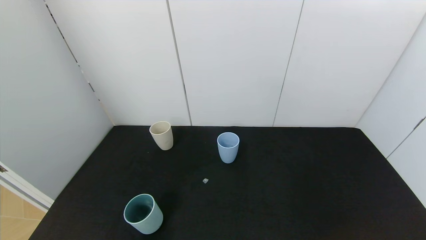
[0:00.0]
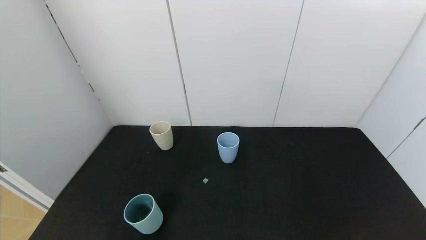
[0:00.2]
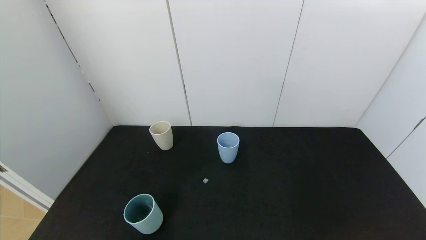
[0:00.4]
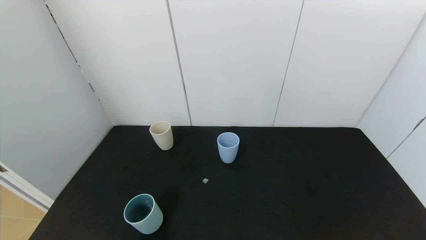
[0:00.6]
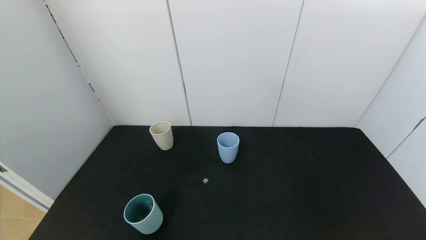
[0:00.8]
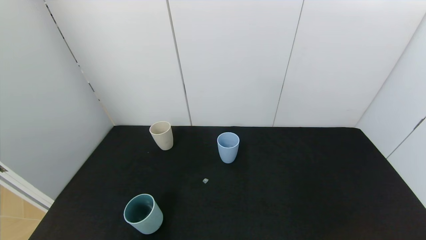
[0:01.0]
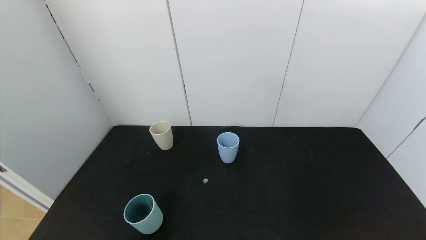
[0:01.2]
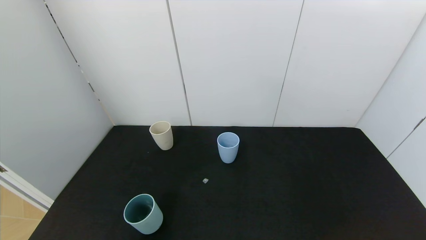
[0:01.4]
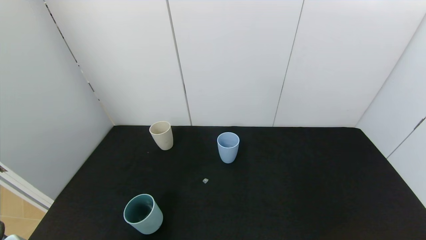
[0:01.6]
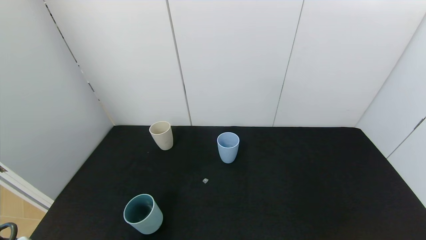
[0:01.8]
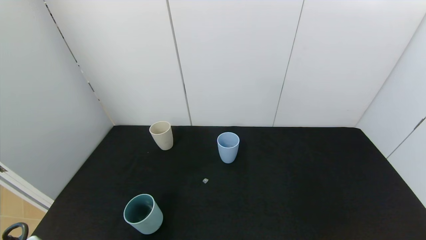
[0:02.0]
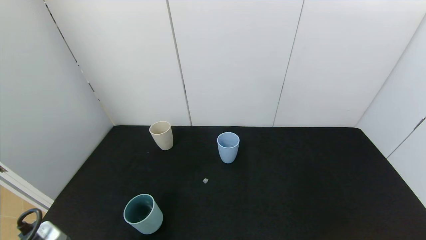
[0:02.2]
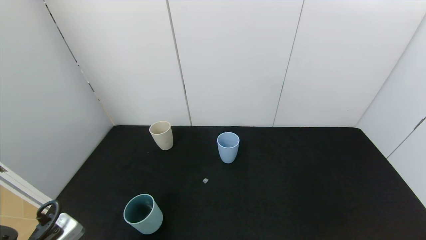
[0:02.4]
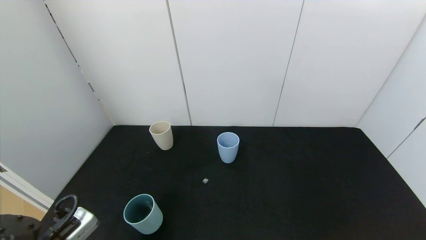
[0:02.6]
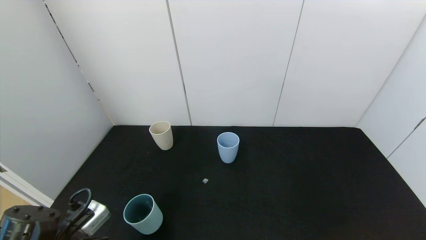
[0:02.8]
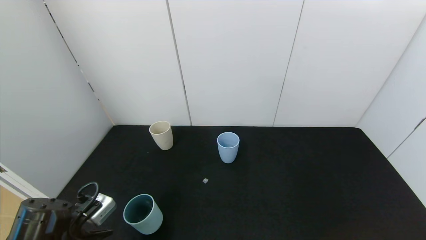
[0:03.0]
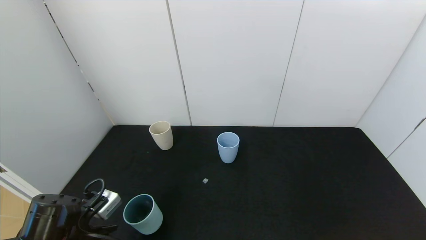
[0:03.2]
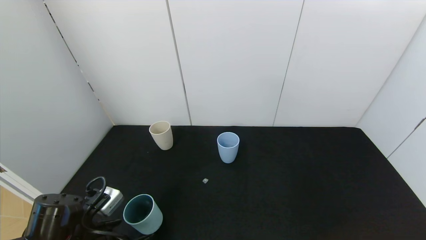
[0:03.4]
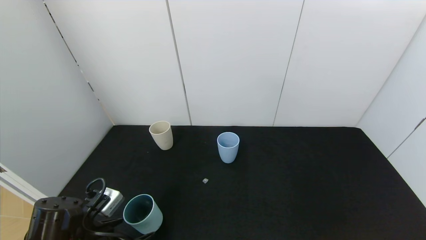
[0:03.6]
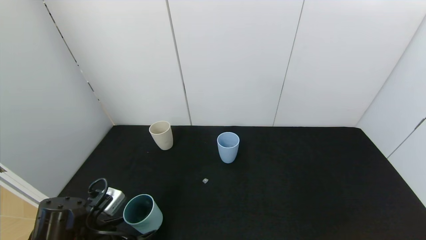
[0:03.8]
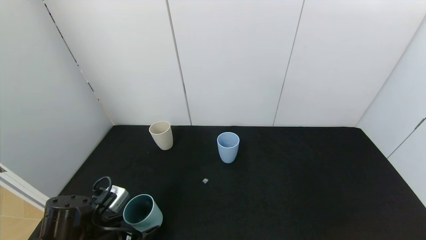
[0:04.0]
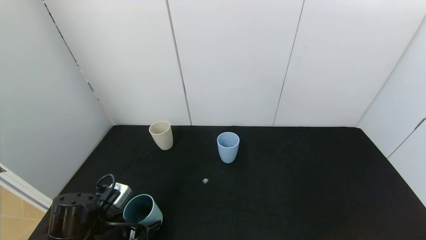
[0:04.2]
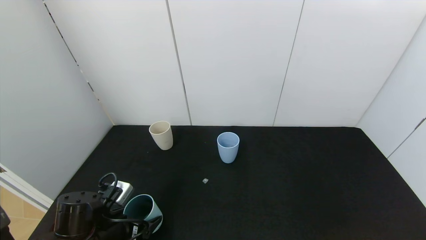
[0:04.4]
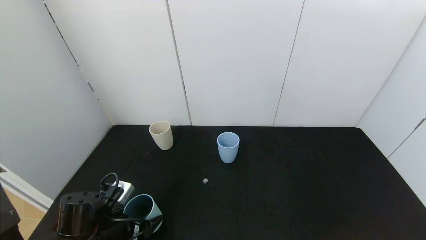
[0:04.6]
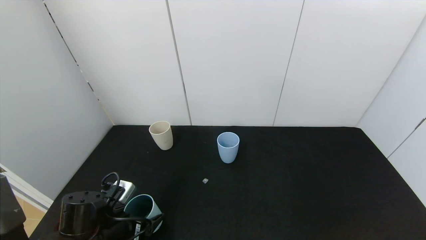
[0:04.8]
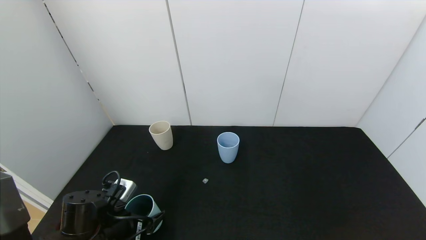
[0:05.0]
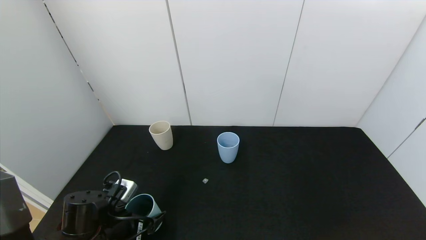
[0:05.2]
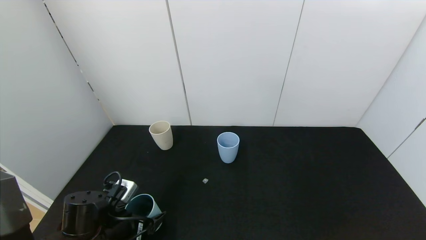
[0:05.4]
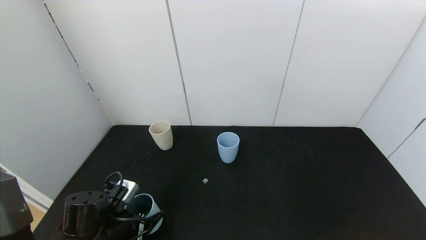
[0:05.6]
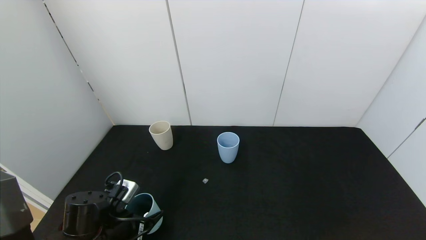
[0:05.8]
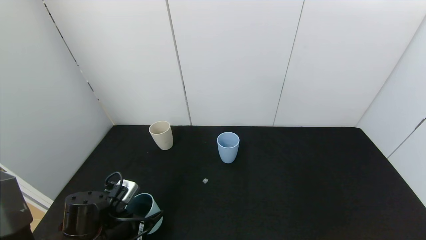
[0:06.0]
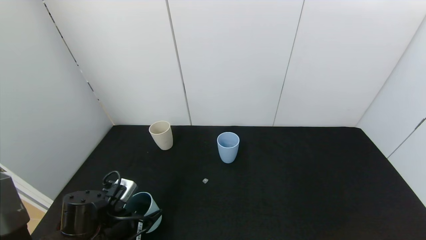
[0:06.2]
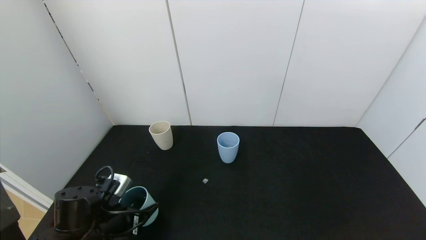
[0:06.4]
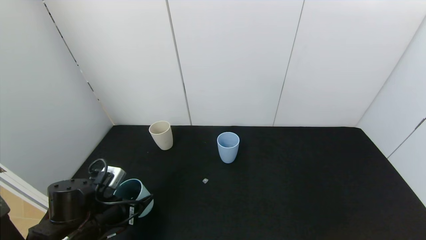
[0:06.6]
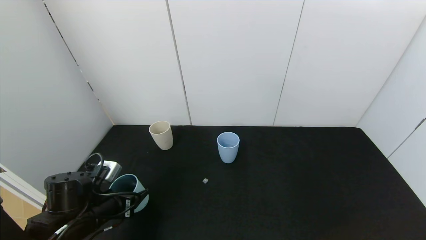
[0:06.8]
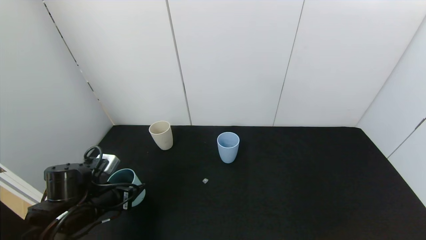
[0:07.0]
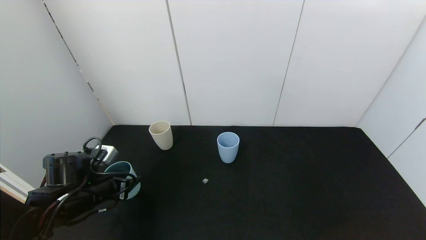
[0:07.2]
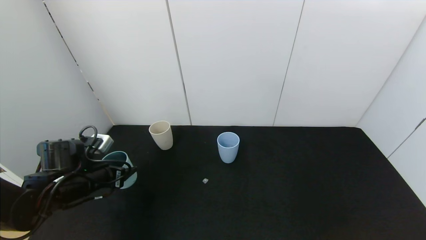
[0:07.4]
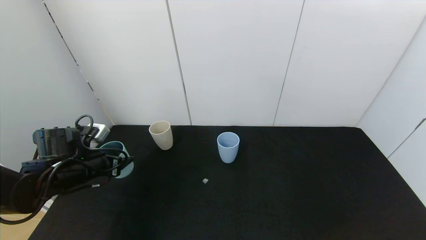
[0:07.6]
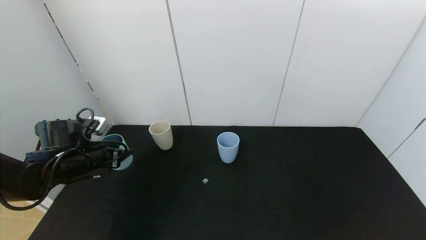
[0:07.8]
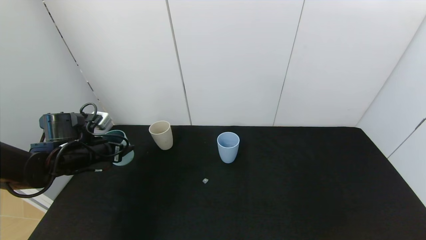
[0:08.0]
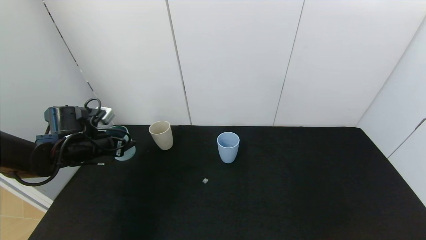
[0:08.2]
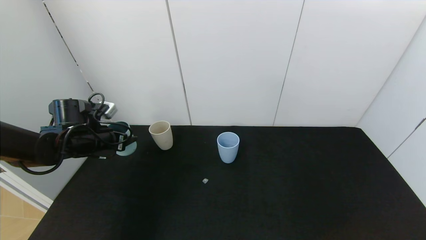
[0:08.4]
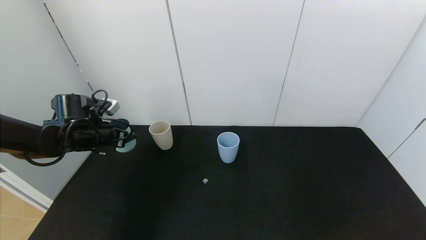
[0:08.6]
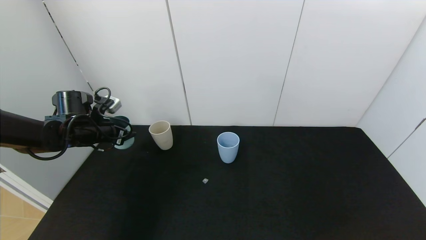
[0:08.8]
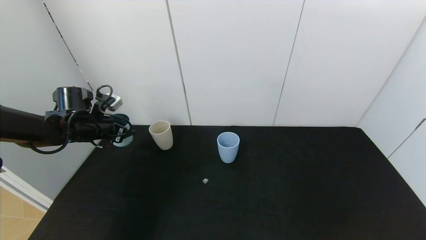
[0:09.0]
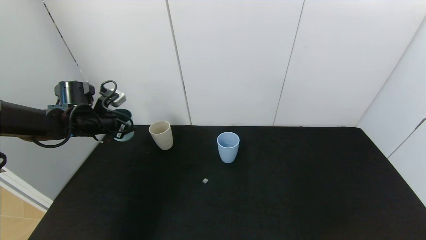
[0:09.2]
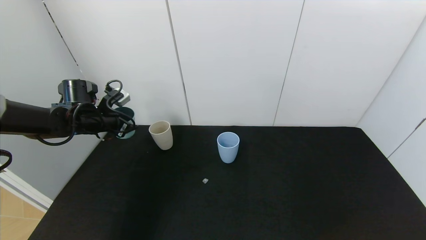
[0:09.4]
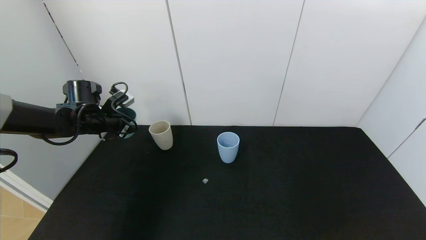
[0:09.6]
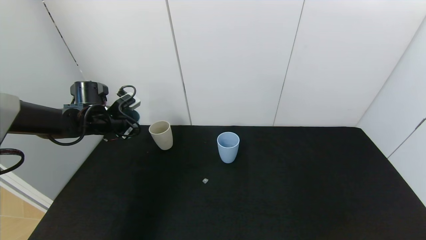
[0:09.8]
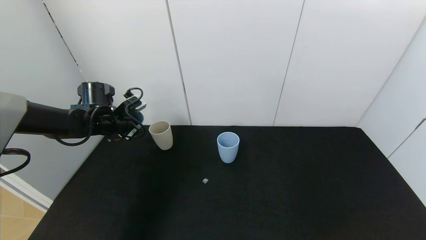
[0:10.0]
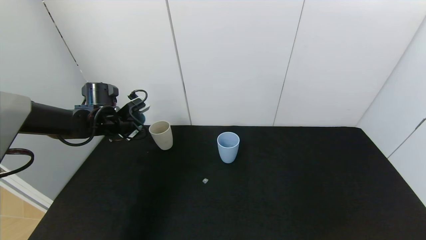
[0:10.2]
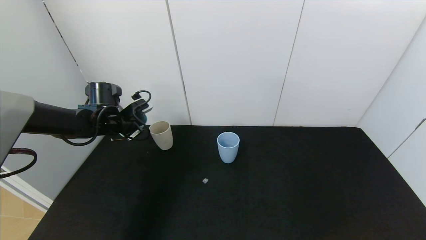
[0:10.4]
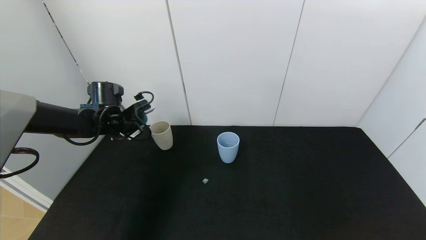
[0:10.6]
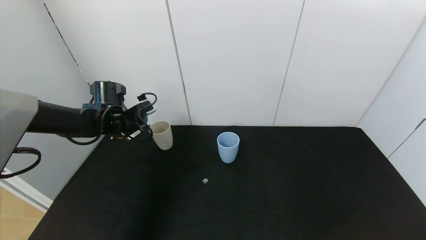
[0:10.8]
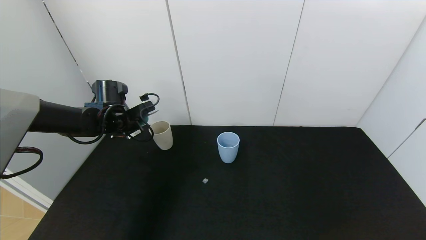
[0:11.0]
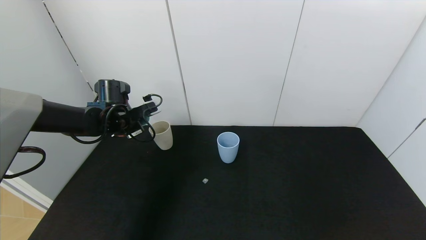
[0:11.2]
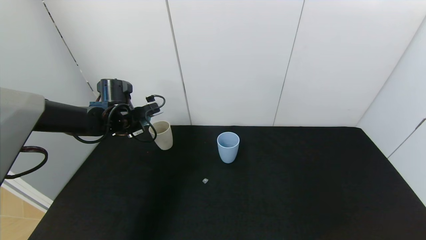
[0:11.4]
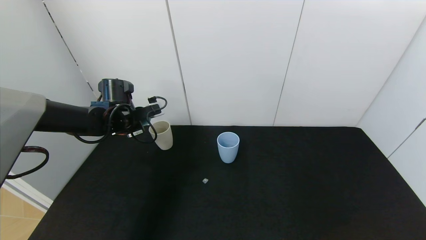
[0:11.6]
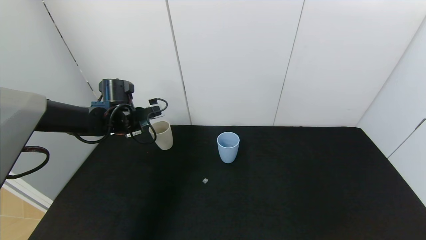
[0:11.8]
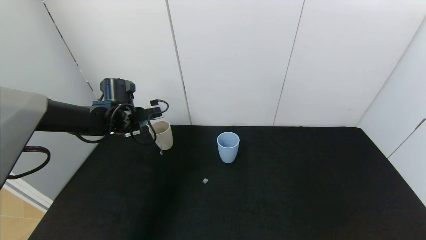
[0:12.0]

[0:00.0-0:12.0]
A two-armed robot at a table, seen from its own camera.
Task of the whole recording: use the gripper to pour the water into the other two cups on black table.
Step, 0.0 to 5.8 s: Grasp the green cup with the left gripper.
1.6 to 3.0 s: The left gripper heads forward, covering some 10 cm.
3.0 to 4.4 s: The left gripper goes roughly 5 cm forward.
4.4 to 6.0 s: The left gripper closes up.
6.0 to 7.6 s: The left gripper moves forward, to the left and upward, roughly 15 cm.
7.6 to 9.0 s: The left gripper goes some 10 cm forward.
9.0 to 10.4 s: The left gripper shifts by some 5 cm.

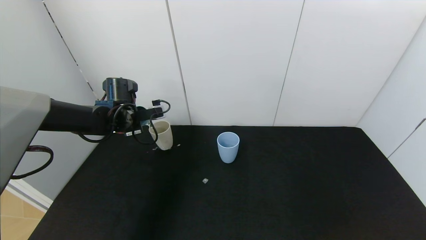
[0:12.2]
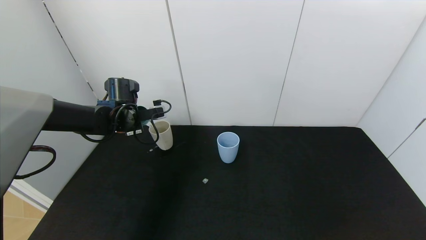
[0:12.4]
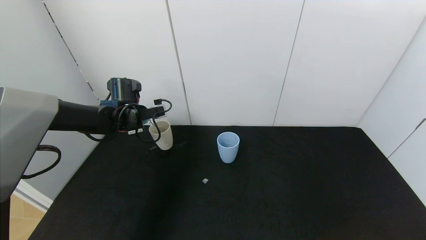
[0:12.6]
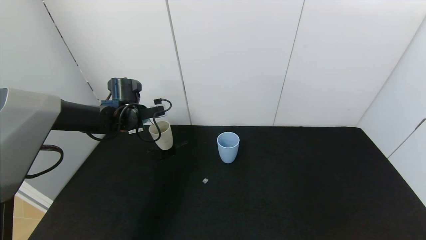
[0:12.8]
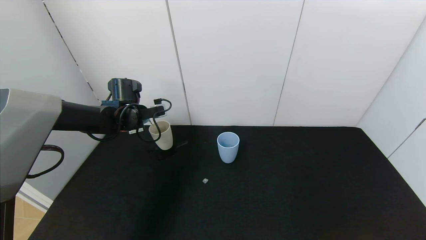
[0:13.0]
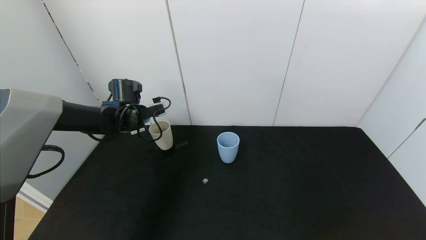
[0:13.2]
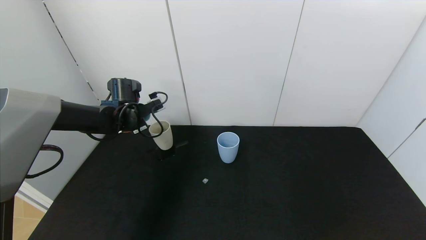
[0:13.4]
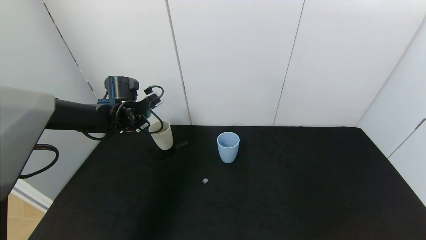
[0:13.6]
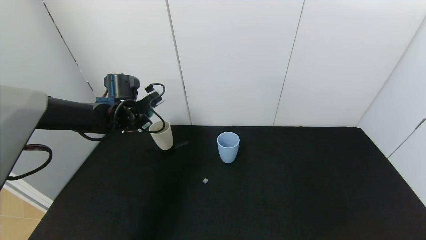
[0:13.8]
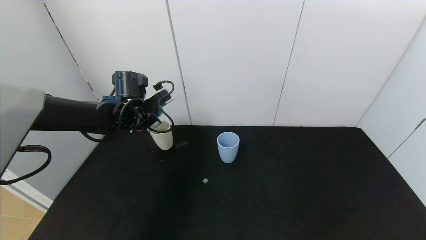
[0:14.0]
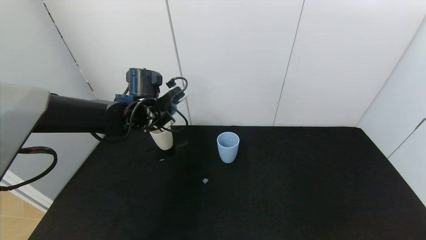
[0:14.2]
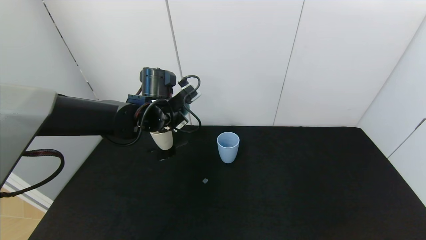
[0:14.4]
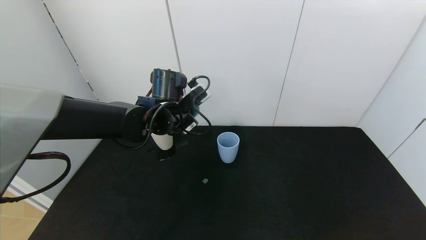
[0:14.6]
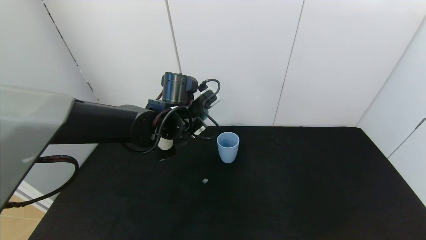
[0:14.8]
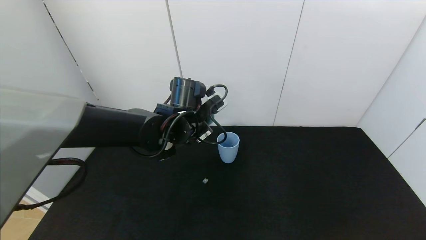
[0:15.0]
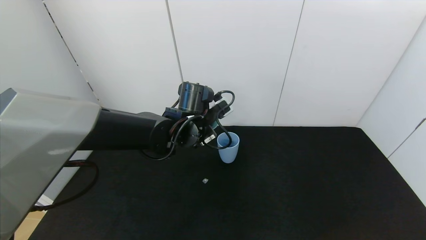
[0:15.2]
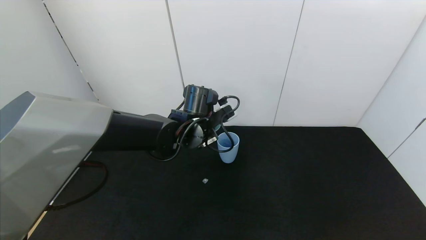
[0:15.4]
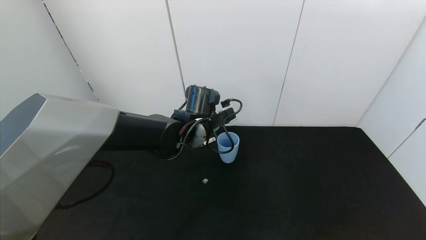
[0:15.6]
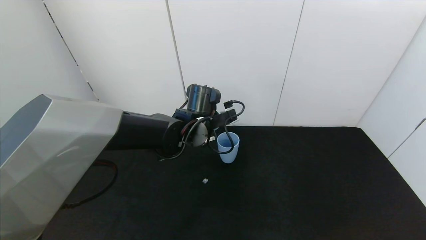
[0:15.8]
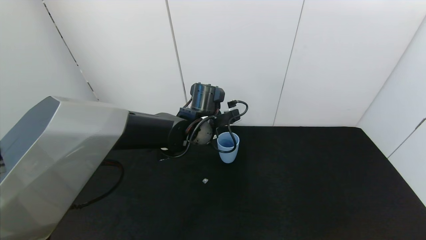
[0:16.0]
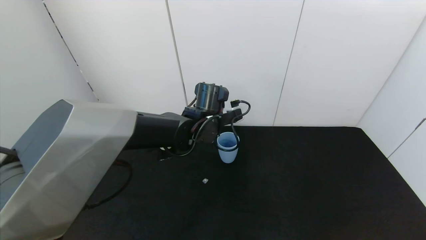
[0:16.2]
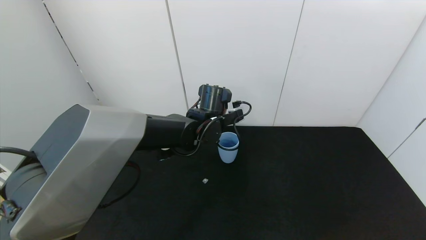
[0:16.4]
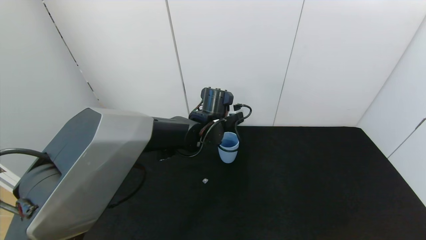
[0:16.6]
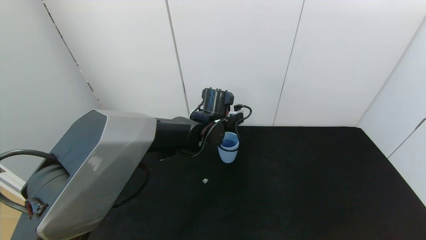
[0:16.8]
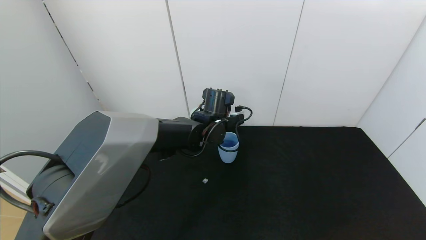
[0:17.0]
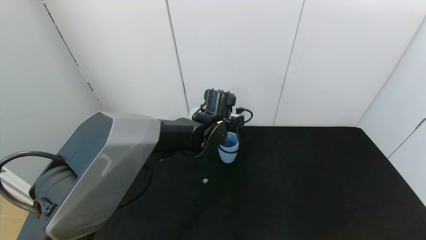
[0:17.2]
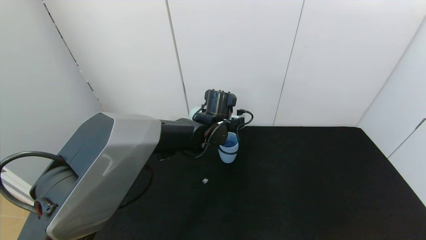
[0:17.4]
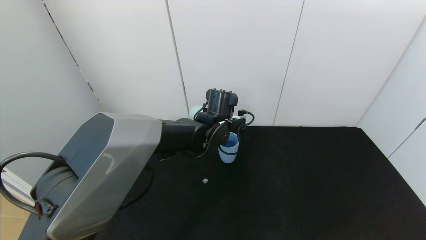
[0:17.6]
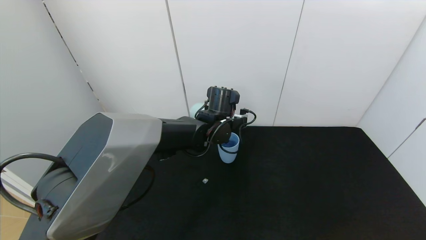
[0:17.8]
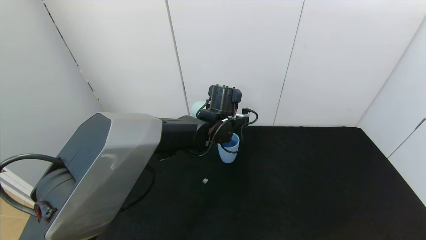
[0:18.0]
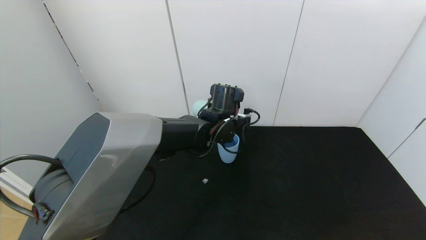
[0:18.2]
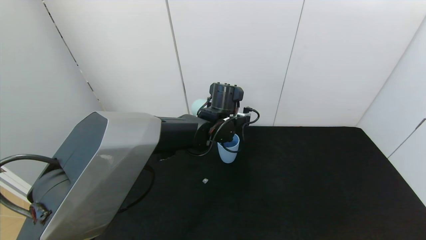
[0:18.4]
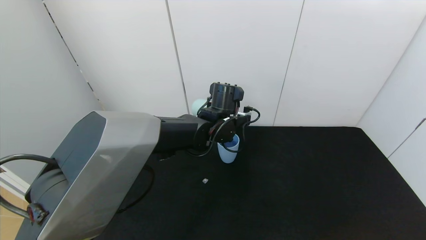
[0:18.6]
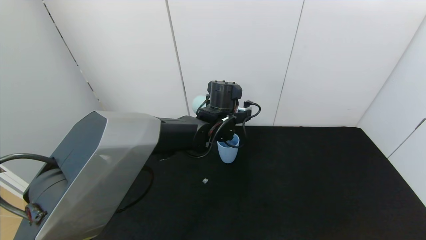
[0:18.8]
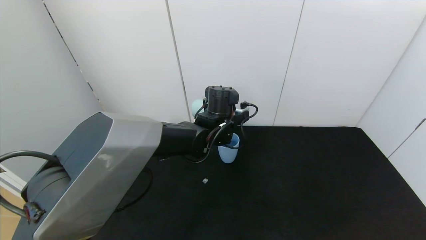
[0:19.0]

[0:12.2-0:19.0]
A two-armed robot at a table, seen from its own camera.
Task of the whole recording: use the gripper to pour the water into the other two cups on black table.
13.6 to 15.0 s: The left gripper is displaced to the right and backward by some 20 cm.
15.0 to 16.2 s: The left gripper moves some 5 cm.
16.2 to 17.6 s: There are only small adjustments of the grippers.
17.6 to 19.0 s: The grippers stay close to where they were, moving slightly.
